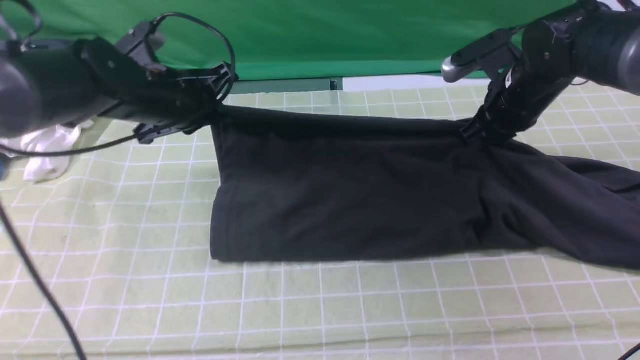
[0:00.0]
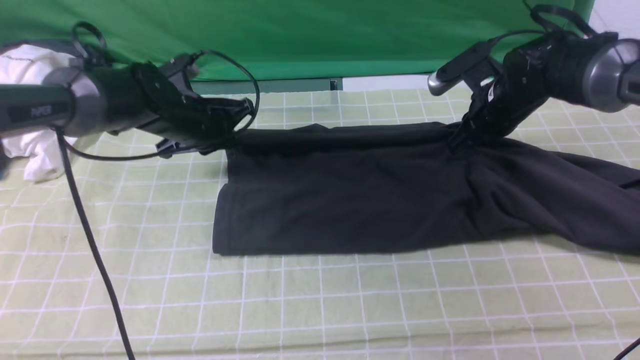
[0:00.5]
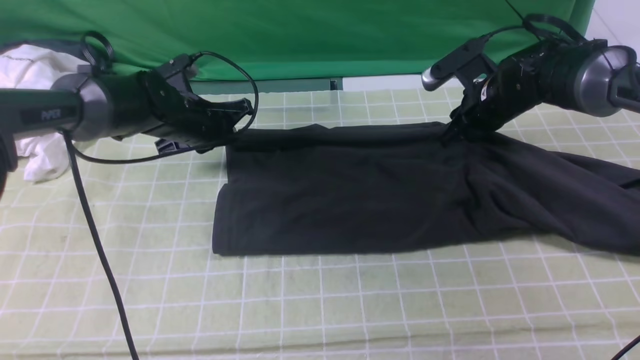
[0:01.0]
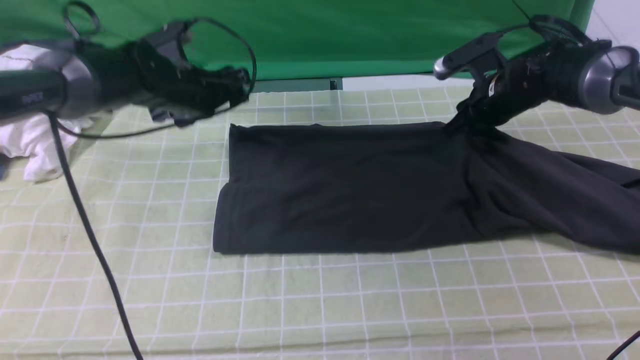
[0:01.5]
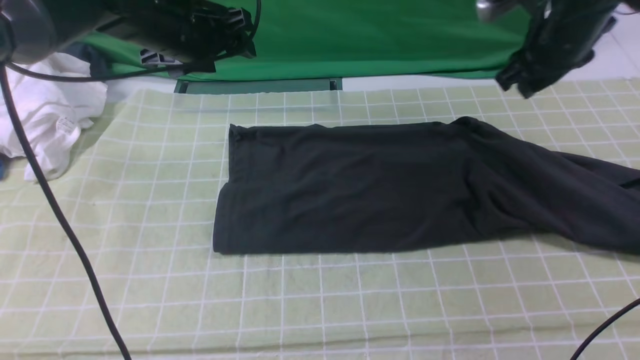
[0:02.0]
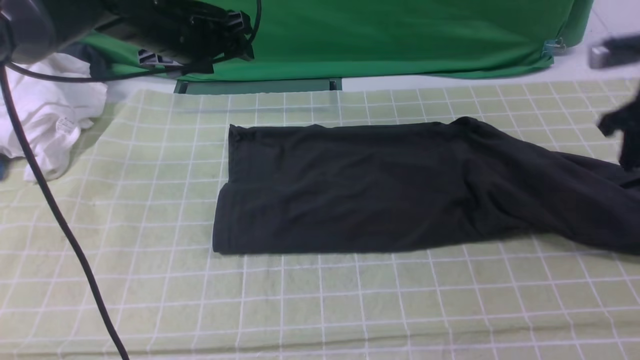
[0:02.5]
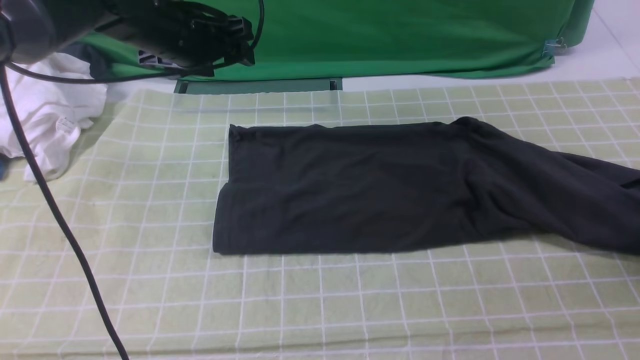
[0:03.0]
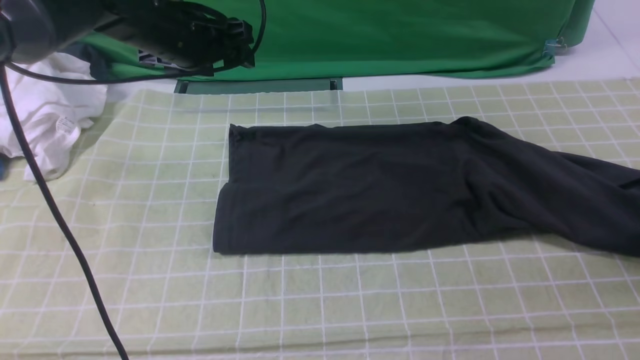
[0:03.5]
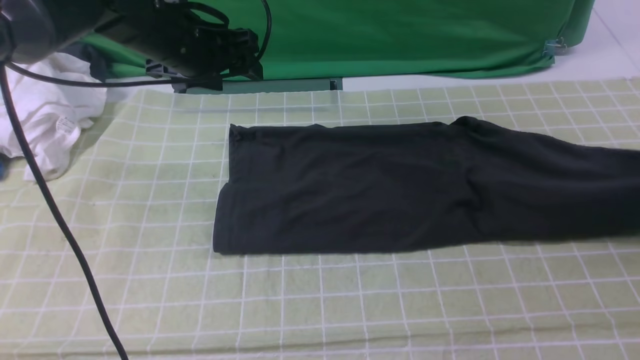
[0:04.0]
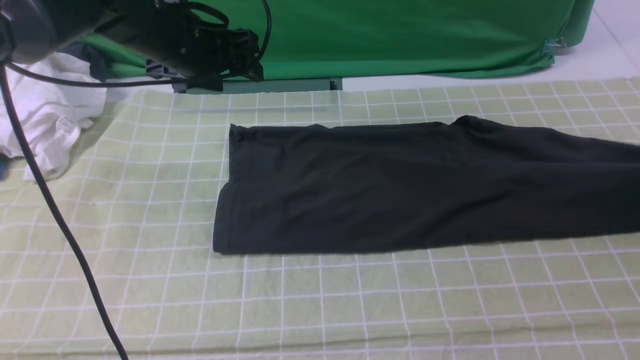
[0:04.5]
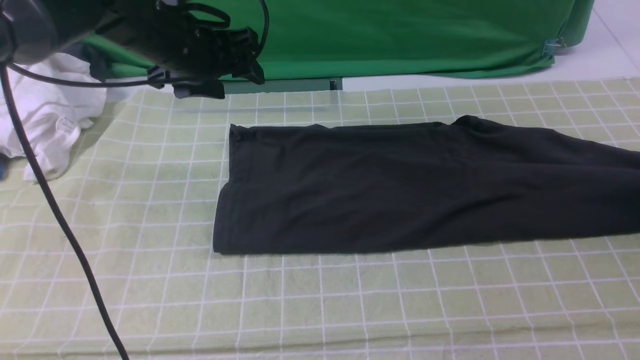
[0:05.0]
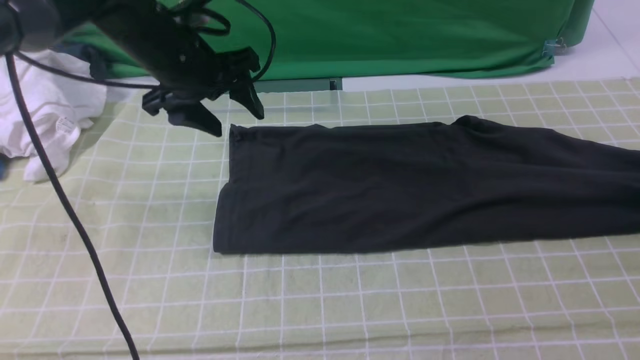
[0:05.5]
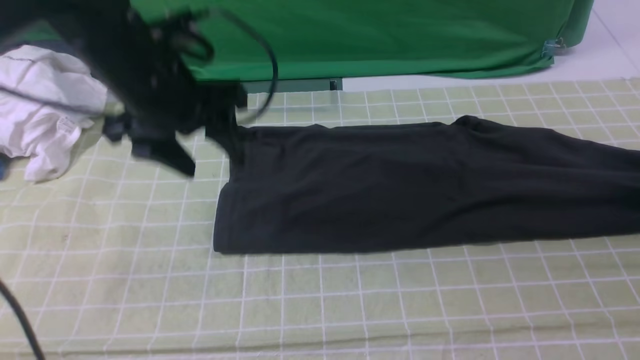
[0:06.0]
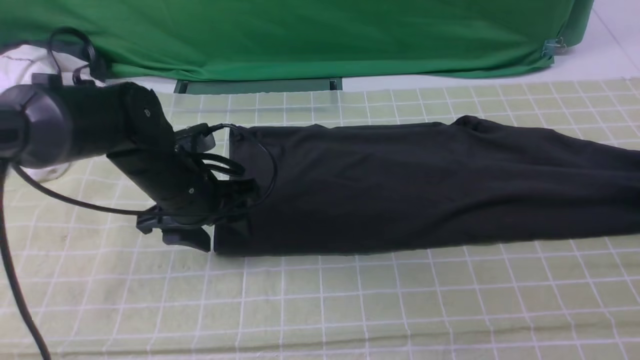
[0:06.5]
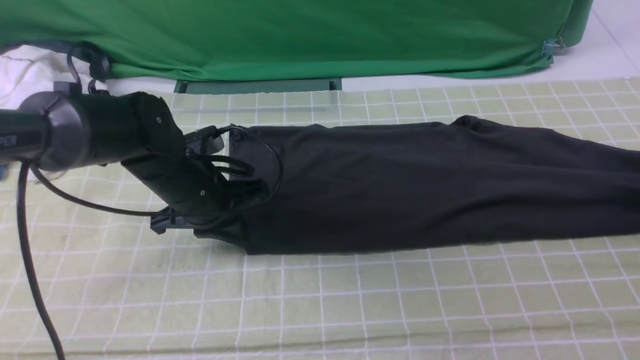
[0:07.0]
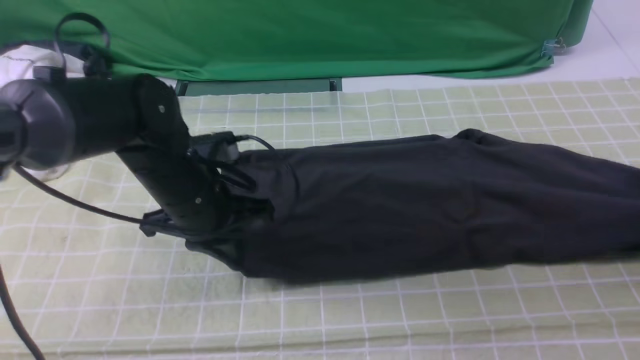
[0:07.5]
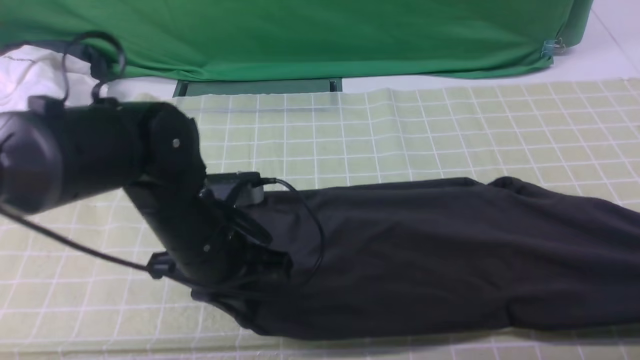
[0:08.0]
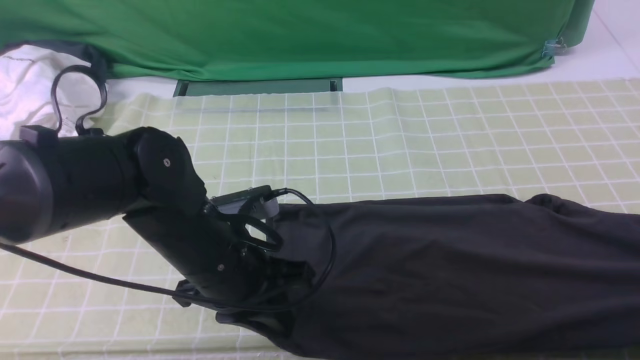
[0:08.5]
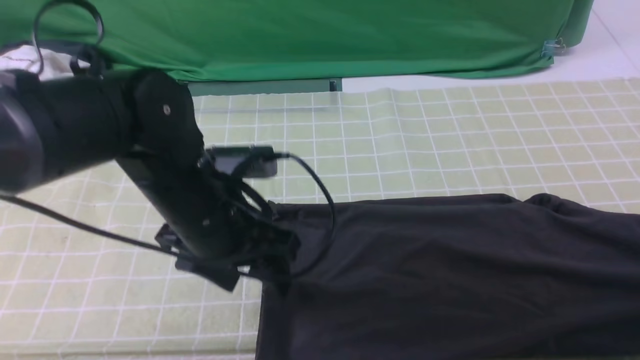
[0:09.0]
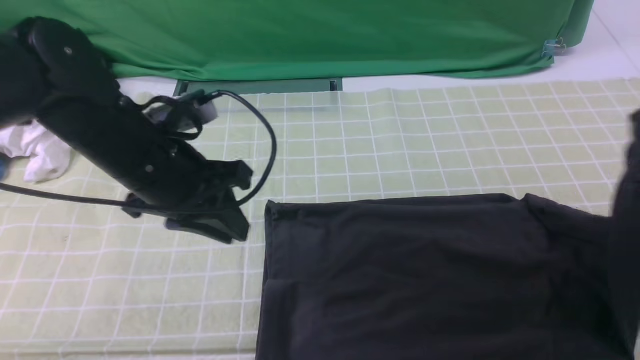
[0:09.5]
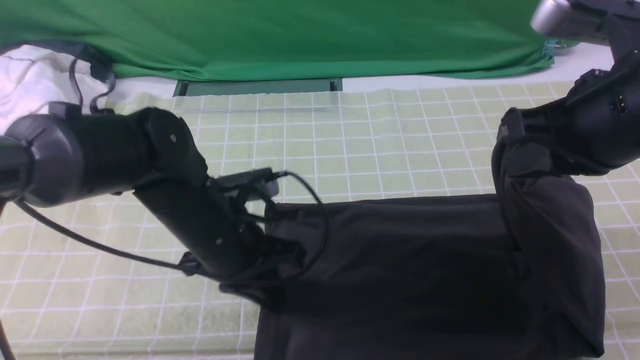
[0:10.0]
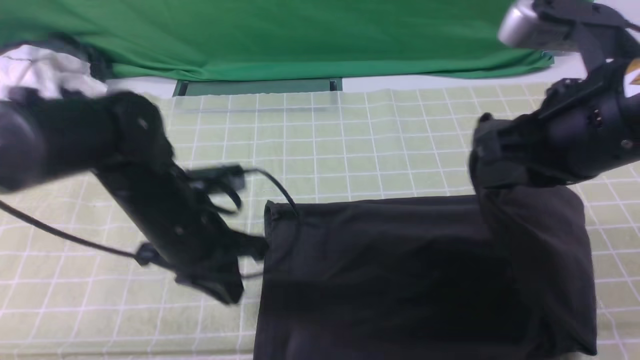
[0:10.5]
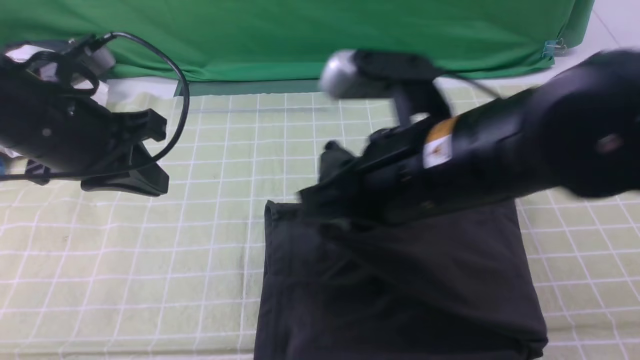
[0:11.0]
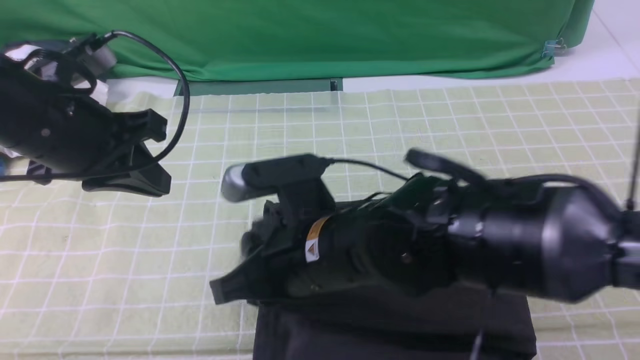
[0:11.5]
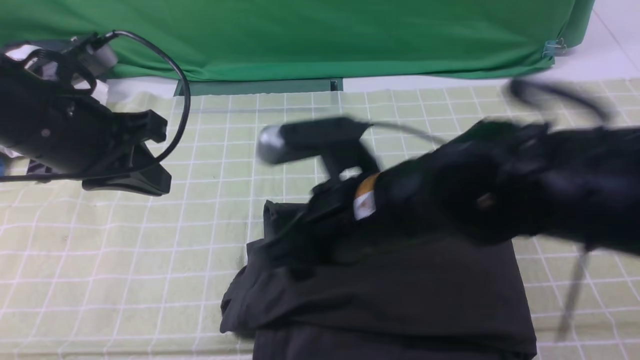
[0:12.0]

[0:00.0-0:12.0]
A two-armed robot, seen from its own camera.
Step, 0:02.0 to 0:09.0: use the right arm to clamp the right edge of the fabric.
Step, 0:09.5 to 0:11.5: use the right arm to drag the right edge of the fabric to the left and folds it over the left edge.
0:00.0 to 0:02.0: Both grippers move upward, roughly 5 cm. The left gripper opens up. Meanwhile the right gripper opens.
0:02.0 to 0:04.0: The right gripper moves to the right, some 20 cm, and closes its fingers.
0:04.0 to 0:06.0: The left gripper moves backward, about 10 cm; the right gripper travels downward by approximately 5 cm, and opens, then closes once more.
0:06.0 to 0:08.0: The right gripper shifts roughly 15 cm backward, while the left gripper shifts about 15 cm backward, downward and to the right, and closes its fingers.
0:08.0 to 0:10.0: The left gripper opens and closes again, while the right gripper heads to the left and upward, covering about 30 cm.
0:10.0 to 0:12.0: The right gripper moves to the left and downward, some 20 cm, and opens. Meanwhile the left gripper is displaced upward and to the left by approximately 15 cm.

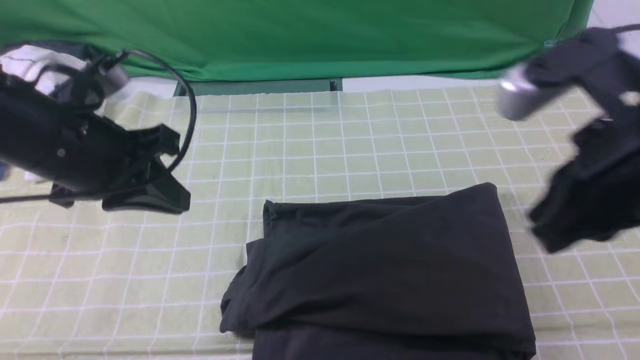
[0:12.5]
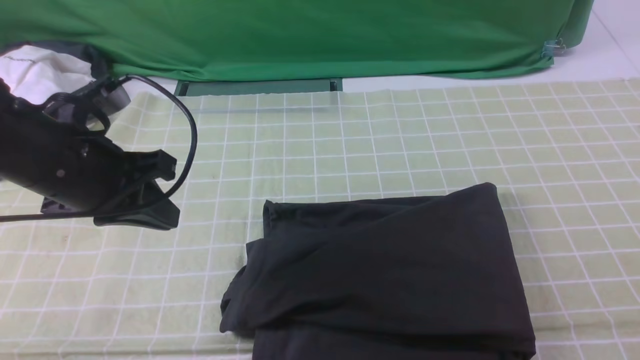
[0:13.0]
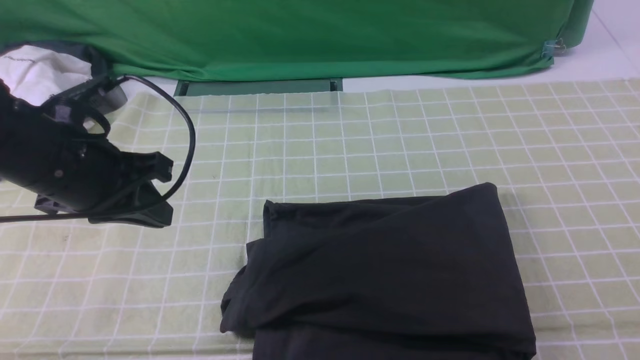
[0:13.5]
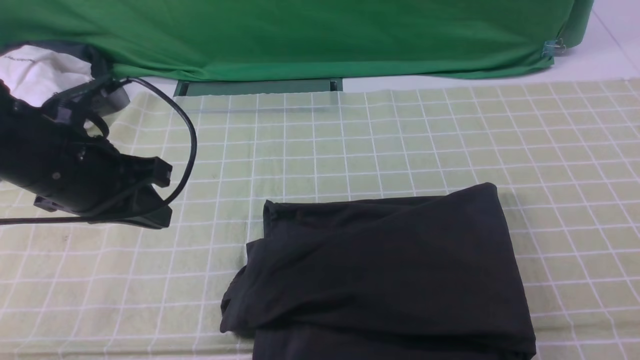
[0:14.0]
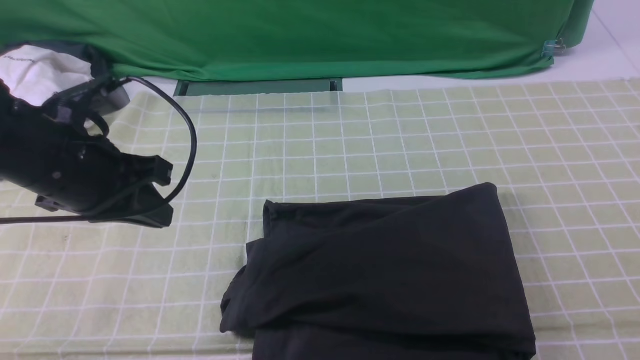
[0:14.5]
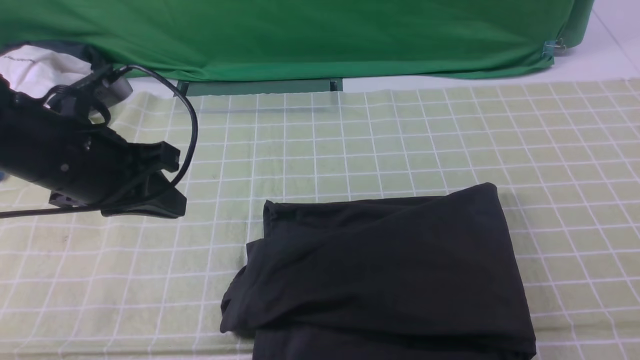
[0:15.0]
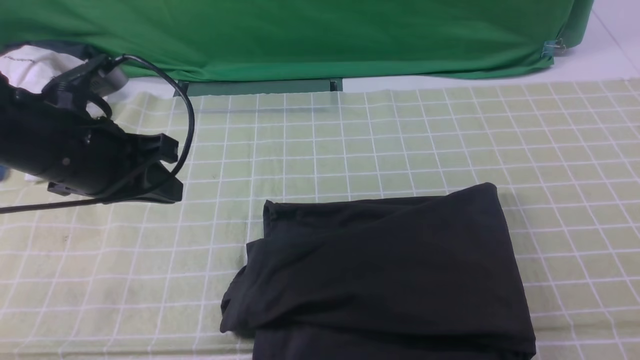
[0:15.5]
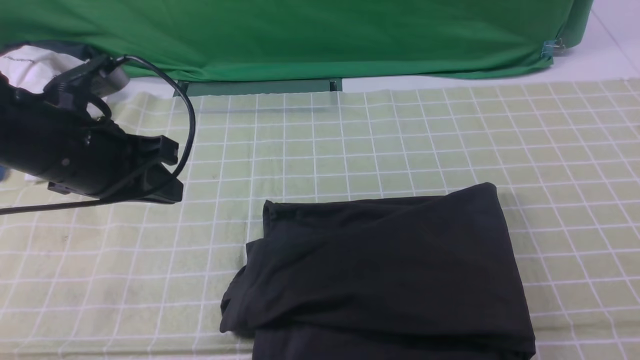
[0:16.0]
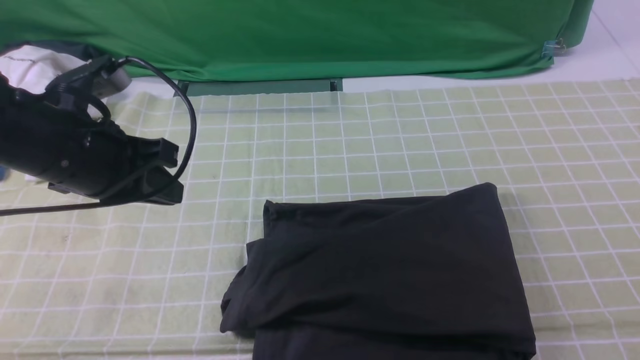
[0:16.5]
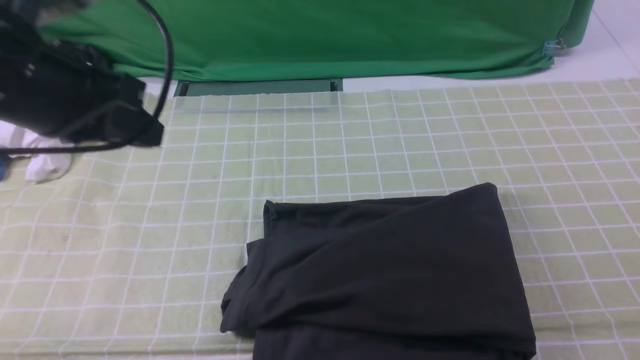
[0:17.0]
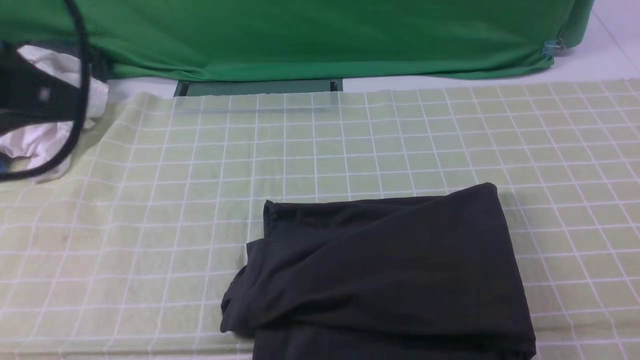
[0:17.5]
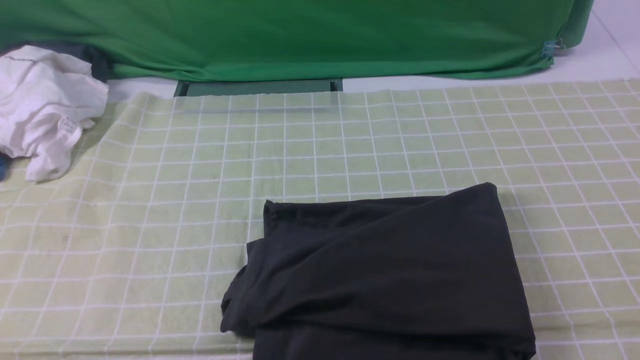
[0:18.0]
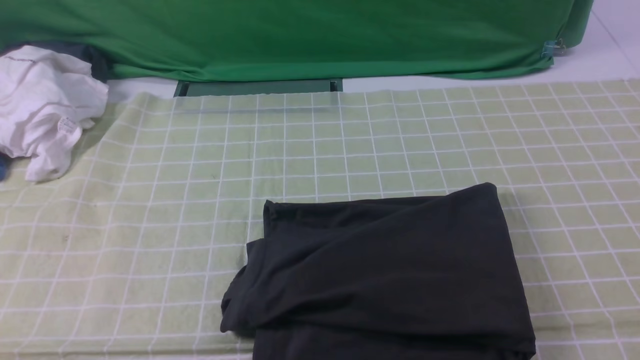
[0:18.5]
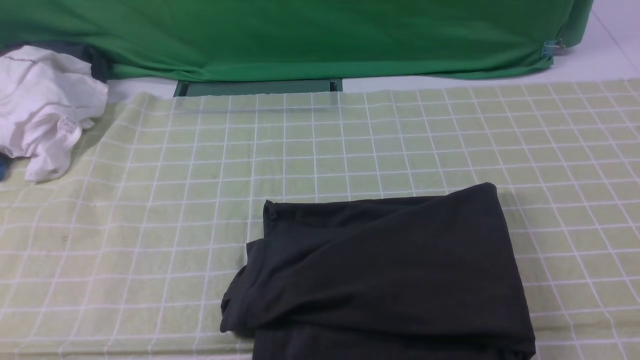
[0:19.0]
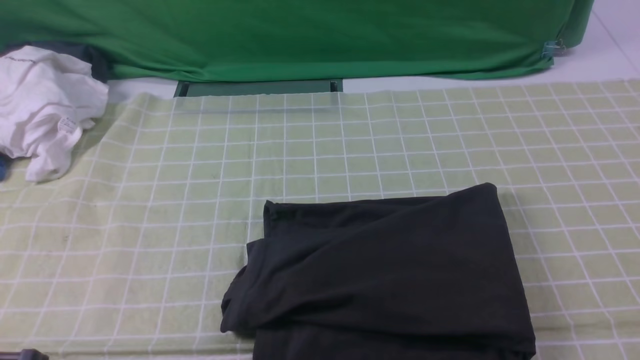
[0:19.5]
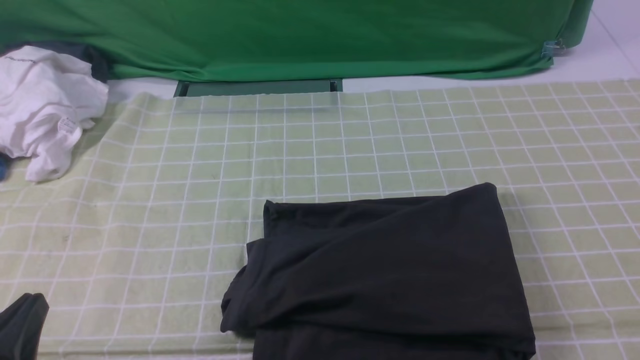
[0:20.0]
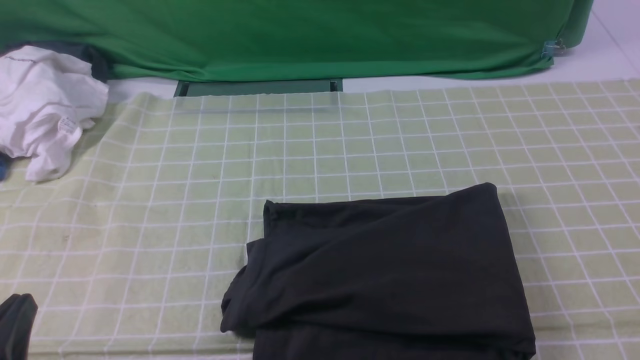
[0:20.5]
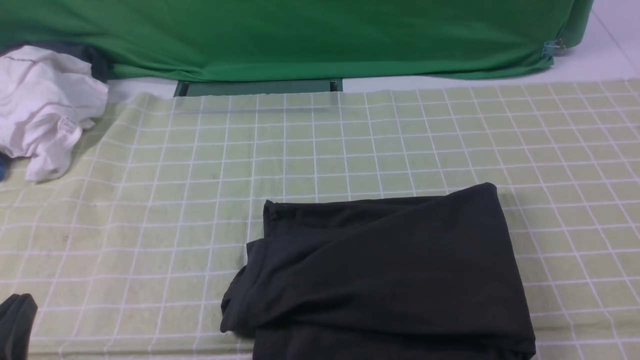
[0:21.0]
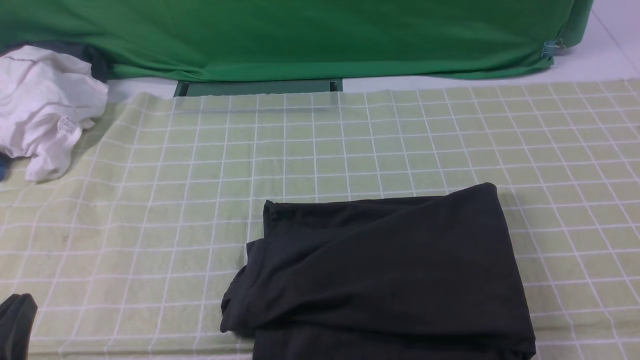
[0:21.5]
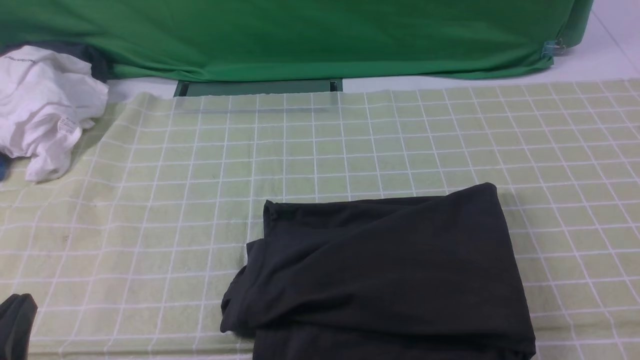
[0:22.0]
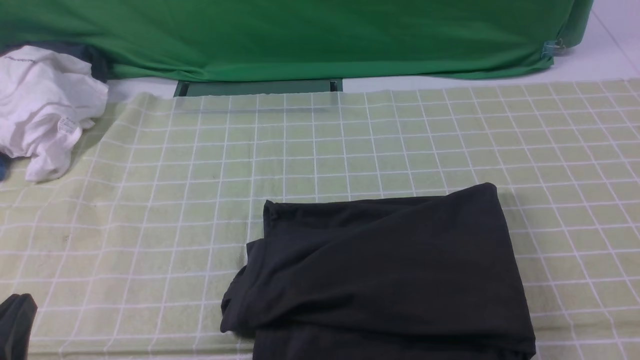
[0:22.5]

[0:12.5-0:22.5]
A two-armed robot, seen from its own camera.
0:12.5 to 0:14.5: The right gripper shifts roughly 20 cm backward, to the right and downward.
0:16.5 to 0:18.5: The left gripper travels backward by about 25 cm.
0:18.5 to 0:20.5: The left gripper moves downward, some 15 cm.
0:20.5 to 0:22.5: Both grippers stay about where they are.
